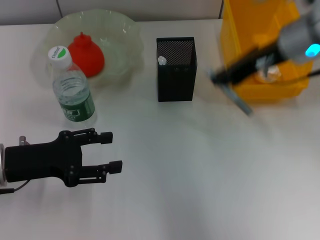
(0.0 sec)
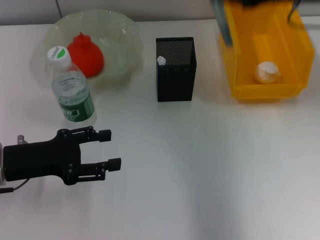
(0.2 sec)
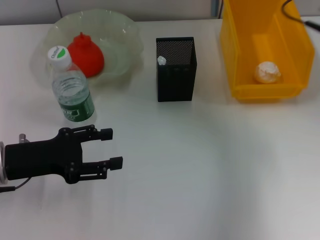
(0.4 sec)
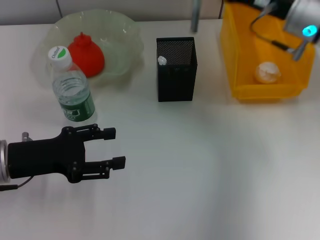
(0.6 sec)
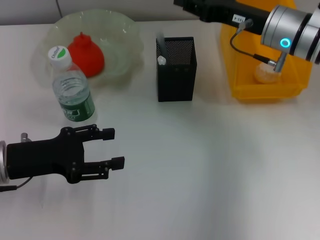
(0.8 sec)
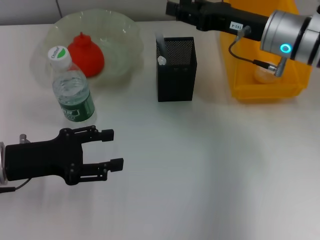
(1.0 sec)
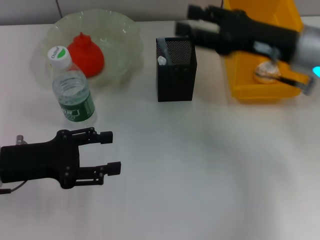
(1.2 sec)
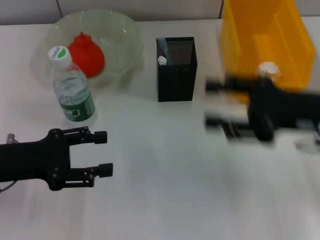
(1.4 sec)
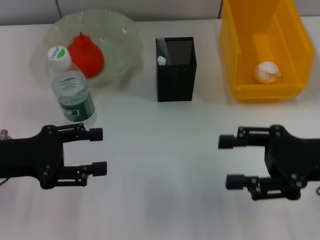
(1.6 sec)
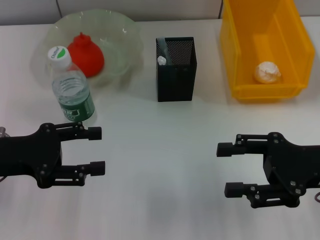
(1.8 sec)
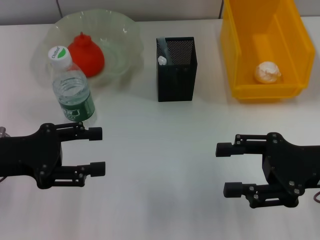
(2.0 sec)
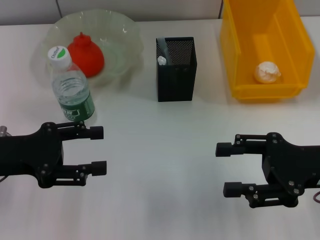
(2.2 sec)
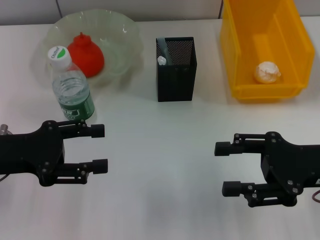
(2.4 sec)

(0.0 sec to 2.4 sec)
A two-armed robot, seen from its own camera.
Step, 0.0 sec - 1.0 sec: Place the gray glue into the pen holder with the right hand.
0.0 sec - 1.2 sec: The right gripper shifts some 5 cm downward, and opens its fingers.
1.2 sec - 2.4 sec: The right gripper travels backward by some 10 cm, and opens.
